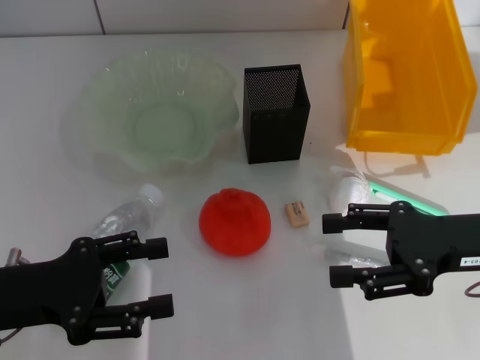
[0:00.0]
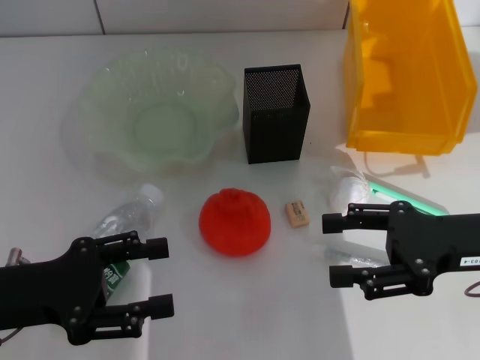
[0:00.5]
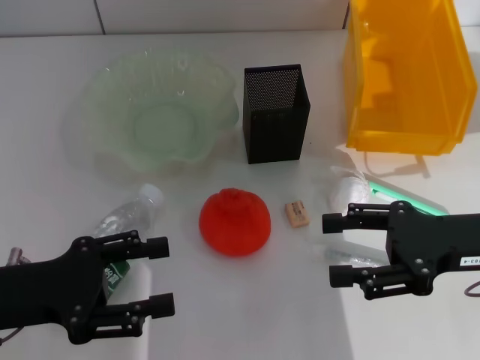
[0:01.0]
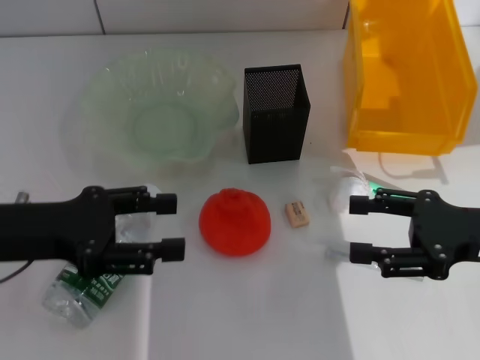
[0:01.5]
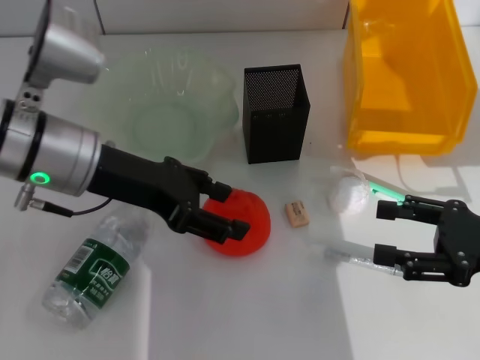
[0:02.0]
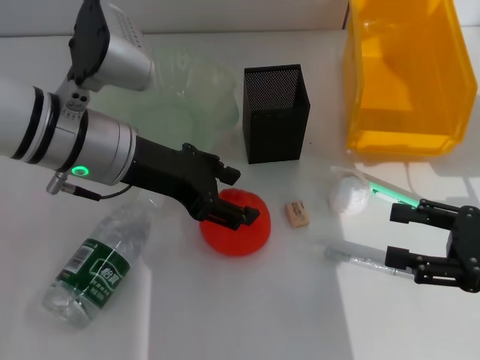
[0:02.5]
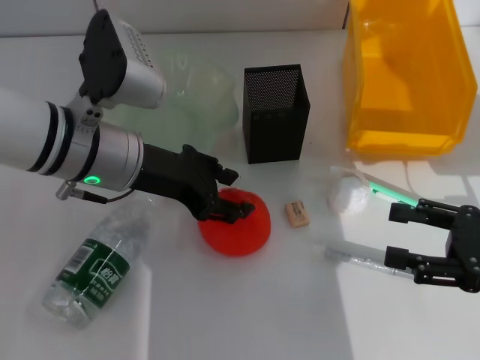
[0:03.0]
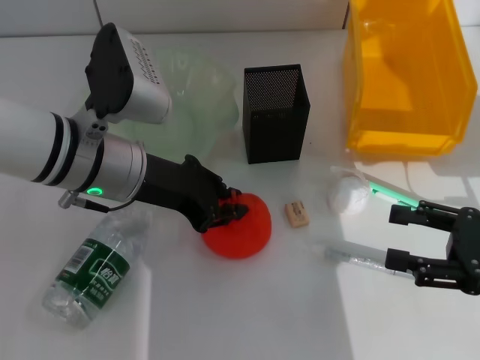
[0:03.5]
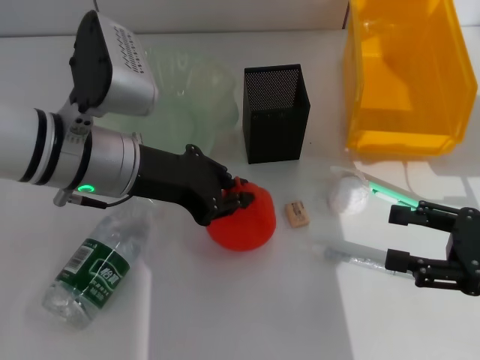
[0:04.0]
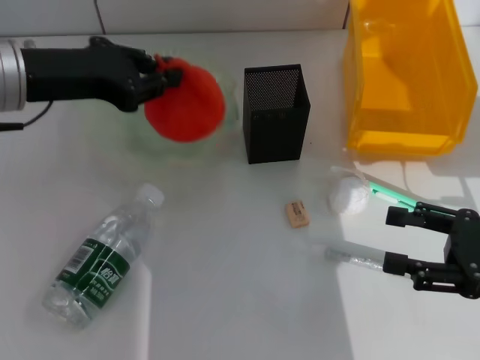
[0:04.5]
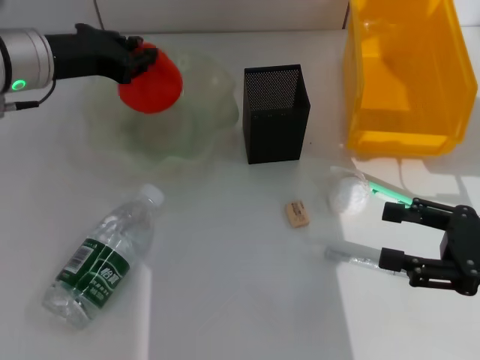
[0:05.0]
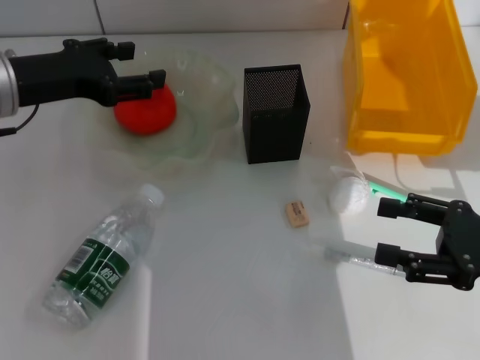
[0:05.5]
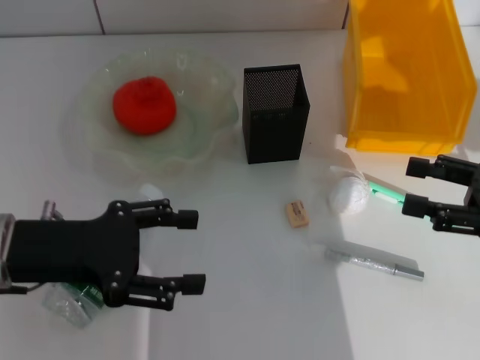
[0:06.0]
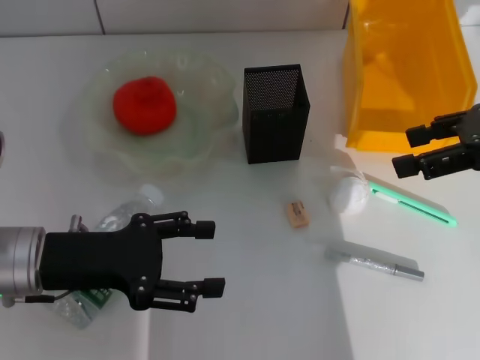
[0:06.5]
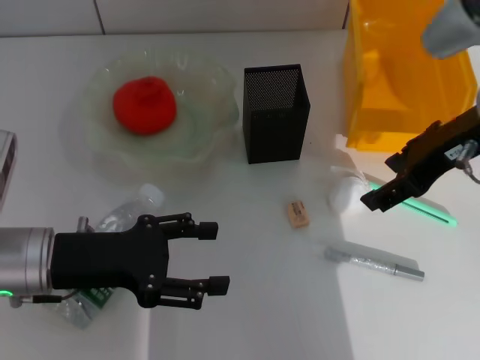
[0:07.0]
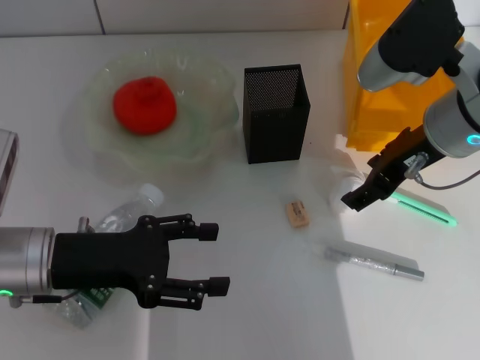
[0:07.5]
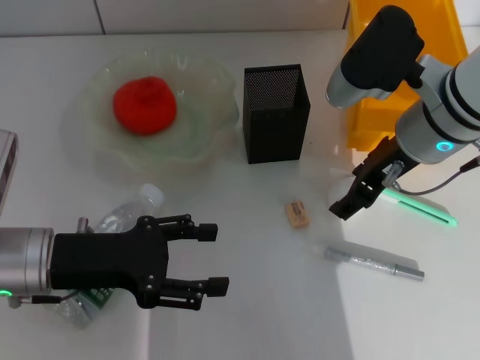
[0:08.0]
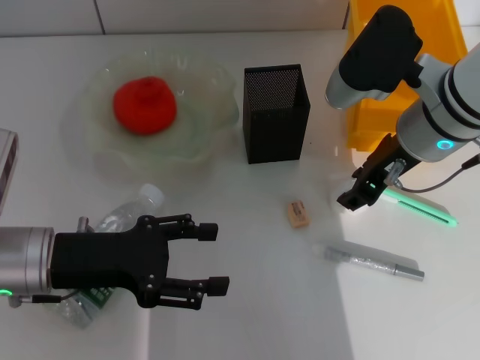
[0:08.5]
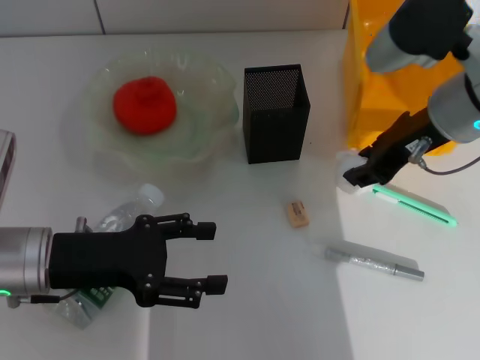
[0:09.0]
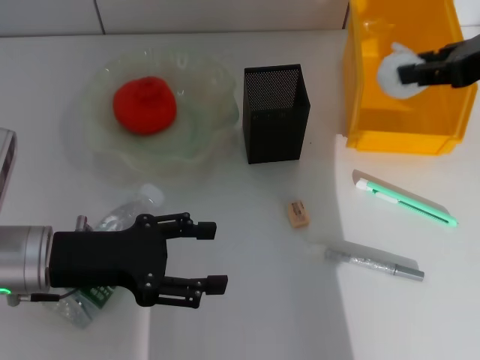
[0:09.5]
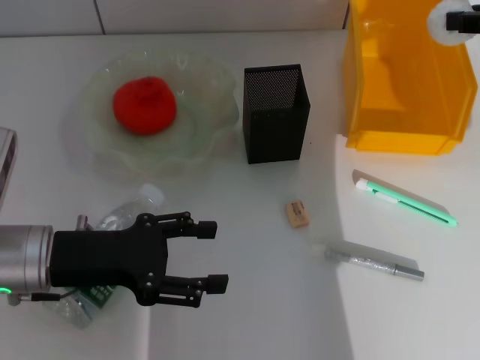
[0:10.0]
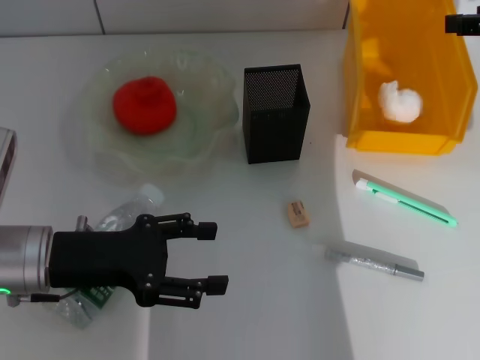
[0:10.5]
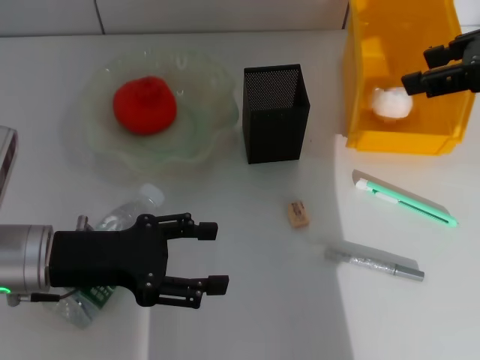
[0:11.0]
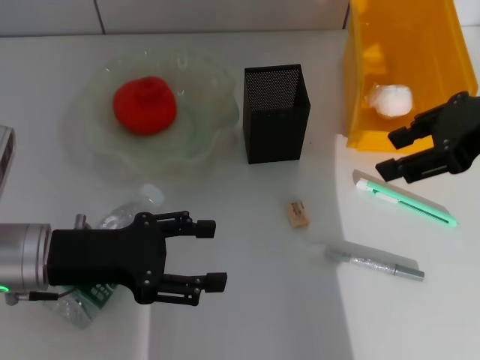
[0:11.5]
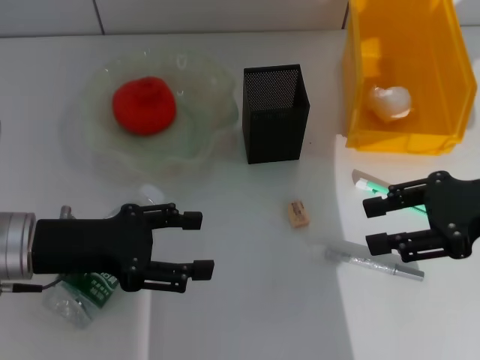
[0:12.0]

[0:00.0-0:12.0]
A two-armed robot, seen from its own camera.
Step, 0:00.0 to 0:03.5: Grab the orange with the left hand.
Step, 0:04.0 to 0:05.0: Place the orange into the fruit bowl with the left hand.
Step, 0:05.5 to 0:08.5: Grab the paper ball with the right hand.
Step, 0:09.0 to 0:10.5: Place the paper ball into the trash can with the right hand.
0:00.0 to 0:02.0: The left gripper shifts some 15 cm forward, to the right and upward. The right gripper shifts by about 5 cm.
0:02.0 to 0:04.0: The left gripper closes.
0:04.0 to 0:06.0: The left gripper travels to the left and backward by some 10 cm, and opens.
0:06.0 to 0:08.0: The right gripper goes roughly 20 cm to the left and forward.
0:08.0 to 0:10.0: The right gripper is displaced to the right and upward by some 15 cm, and closes.
0:10.0 to 0:12.0: The right gripper shifts roughly 10 cm downward and backward.

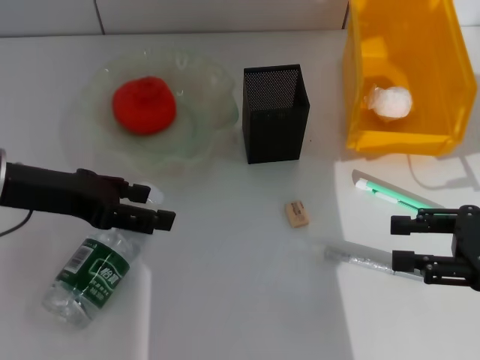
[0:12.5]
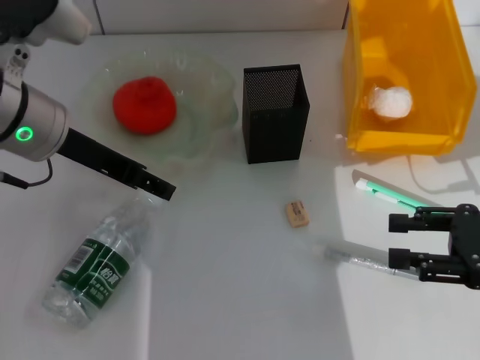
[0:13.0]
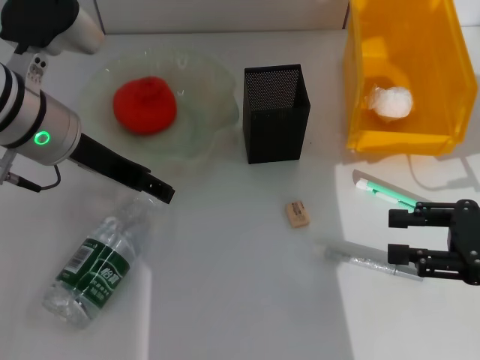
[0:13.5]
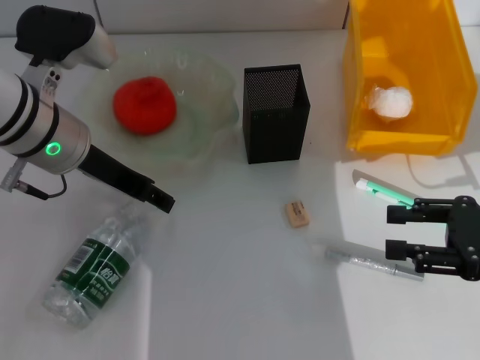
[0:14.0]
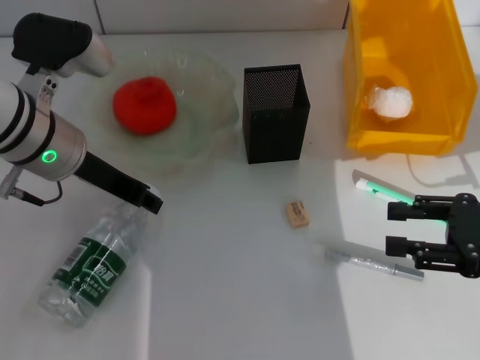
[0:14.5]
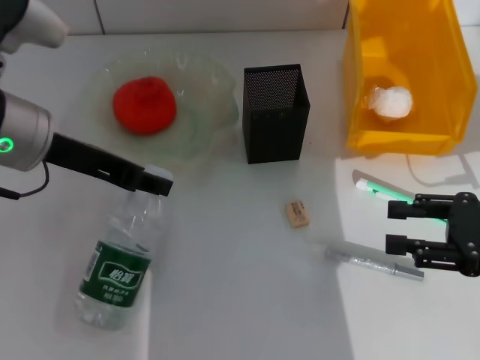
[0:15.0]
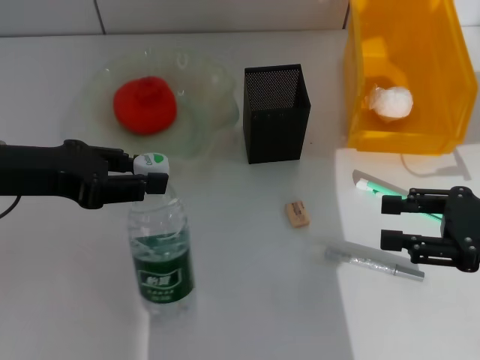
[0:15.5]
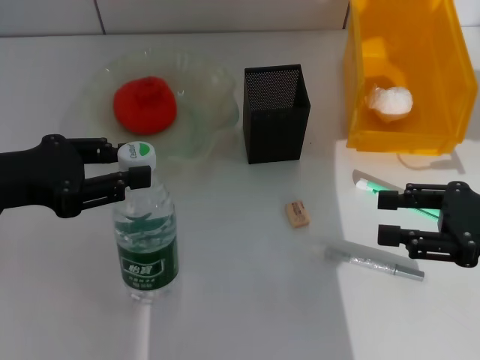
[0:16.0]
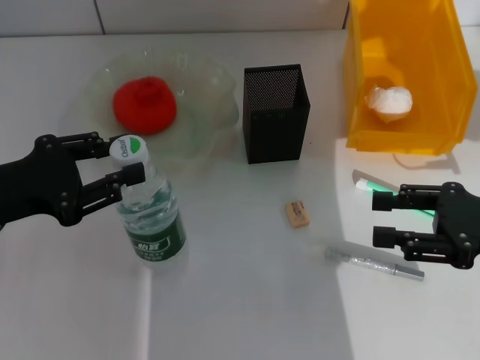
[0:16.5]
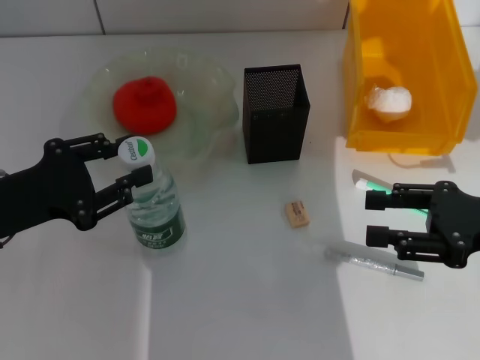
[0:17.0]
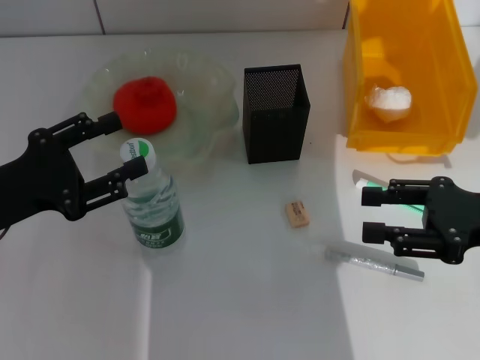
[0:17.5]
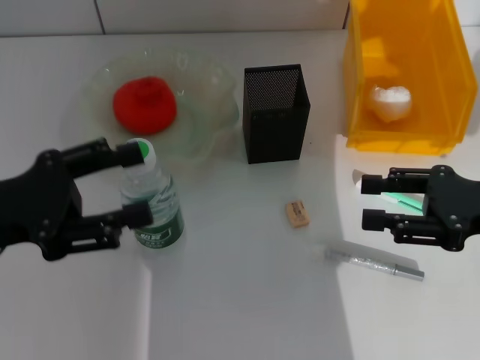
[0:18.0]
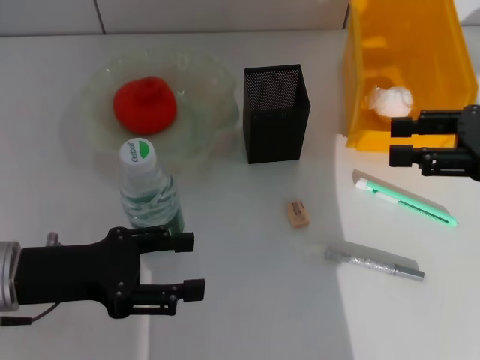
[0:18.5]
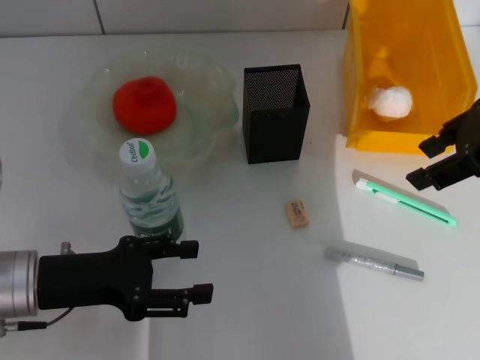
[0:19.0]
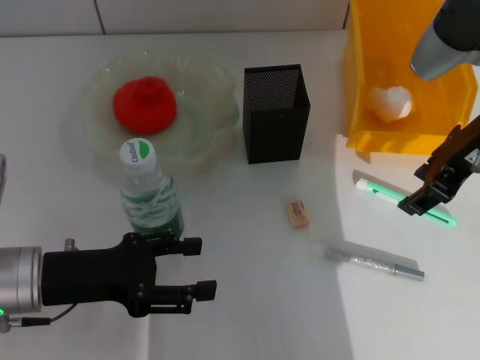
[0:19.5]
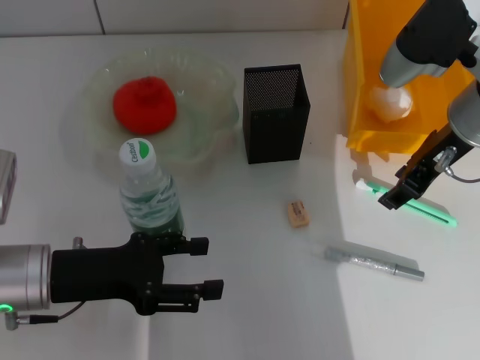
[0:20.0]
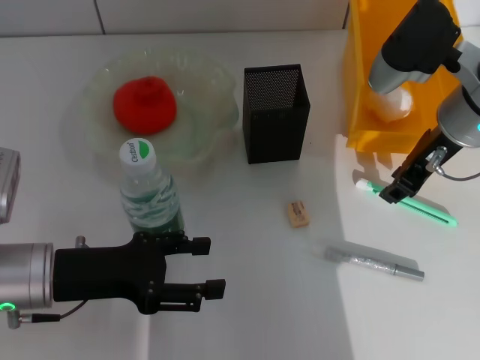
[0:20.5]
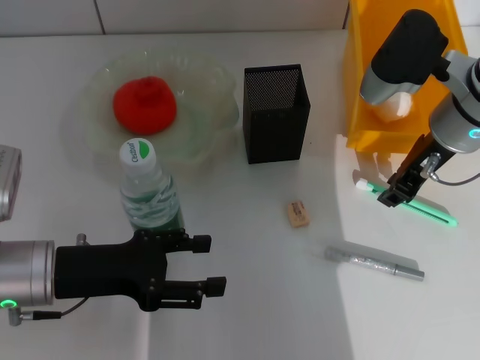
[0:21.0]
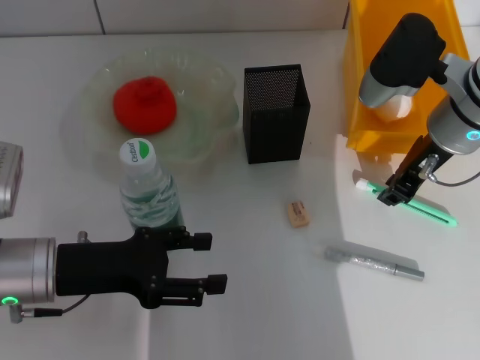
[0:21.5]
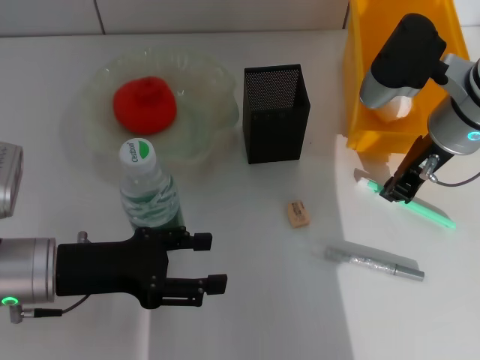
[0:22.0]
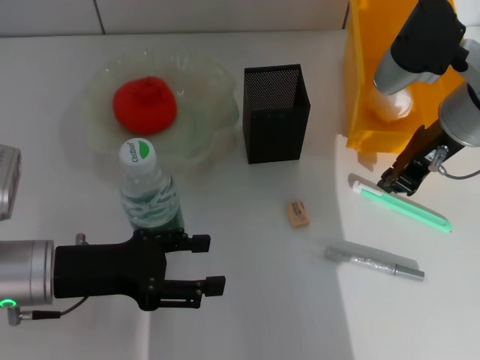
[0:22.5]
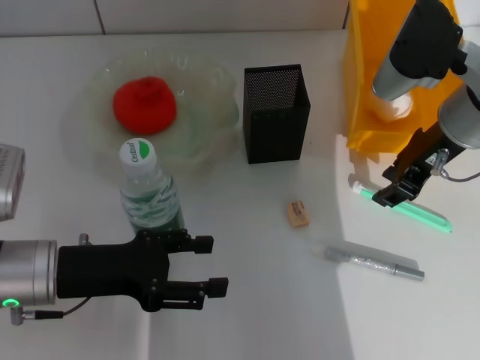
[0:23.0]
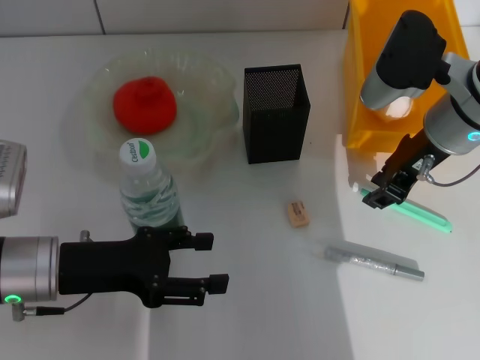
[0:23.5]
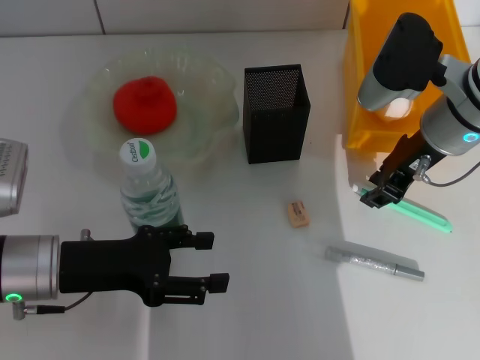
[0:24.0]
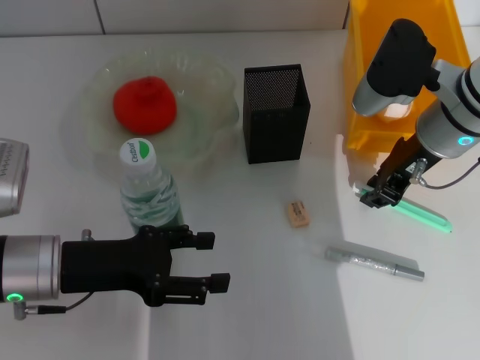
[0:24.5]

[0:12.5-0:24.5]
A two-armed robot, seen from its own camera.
Step, 0:12.5 to 0:14.5: Grab the water bottle with the left hand.
Step, 0:15.0 to 0:17.5: Place the water bottle on the table with the left hand.
0:12.5 to 0:14.5: The left gripper goes some 10 cm to the right and forward, and closes up.
0:14.5 to 0:16.5: The left gripper travels to the left and backward by about 15 cm.
0:16.5 to 0:18.5: The right gripper travels upward by about 5 cm. The left gripper changes place by some 5 cm, and opens up.
0:18.5 to 0:20.5: The right gripper is displaced to the left and forward by some 15 cm.
0:20.5 to 0:22.5: The right gripper closes up.
0:22.5 to 0:24.5: The grippers stay close to where they were, moving slightly.

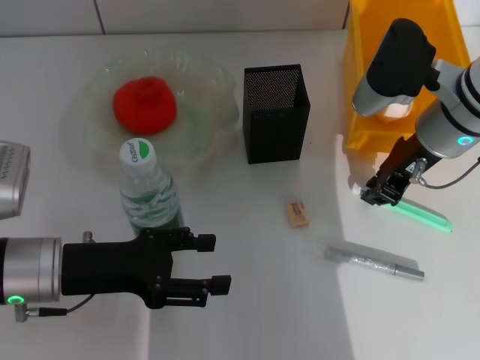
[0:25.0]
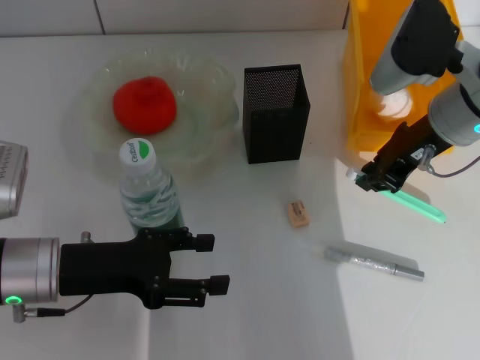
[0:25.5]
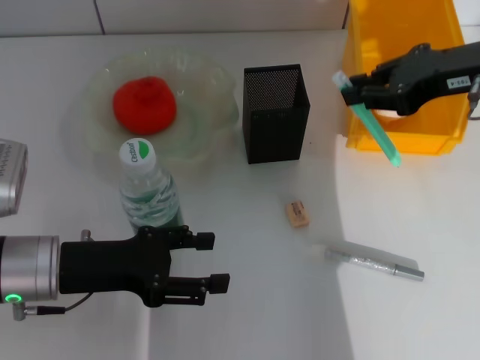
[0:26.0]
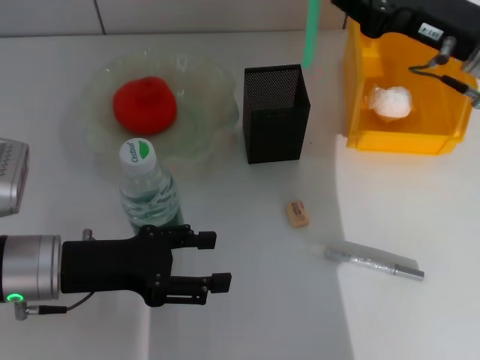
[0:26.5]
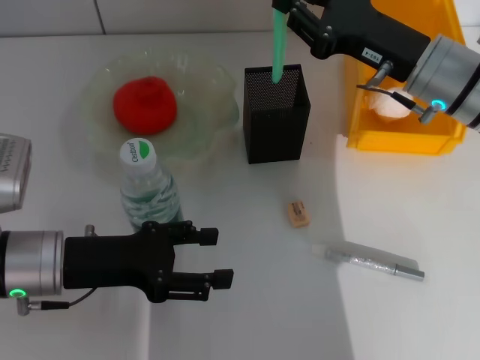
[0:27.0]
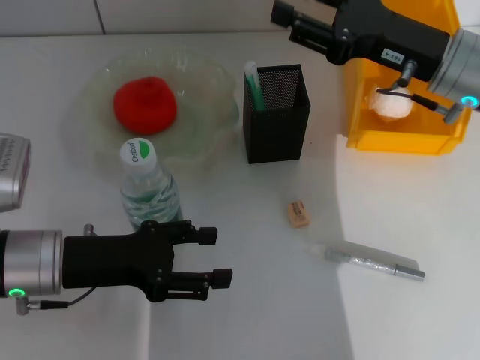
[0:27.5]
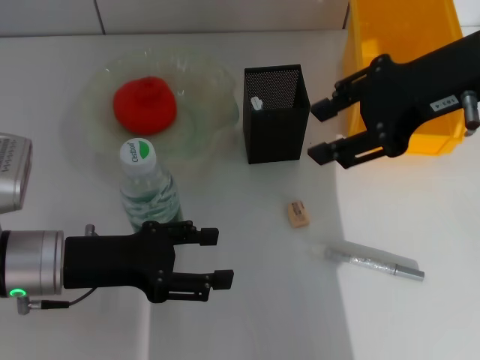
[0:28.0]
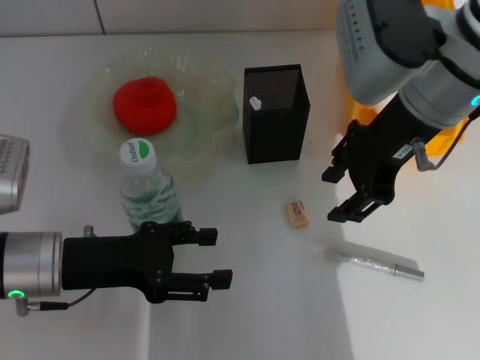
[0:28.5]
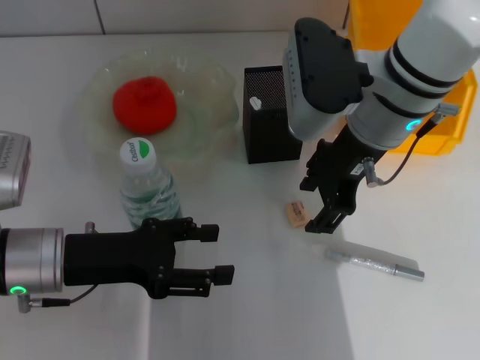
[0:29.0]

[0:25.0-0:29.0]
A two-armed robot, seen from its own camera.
Step, 0:25.5 to 0:27.0: Place the blue utility knife into the pen holder with the right hand.
0:25.0 to 0:27.0: The right gripper travels upward and back again, roughly 10 cm each way.
0:27.0 to 0:29.0: The right gripper heads to the left, covering approximately 10 cm, and opens.
